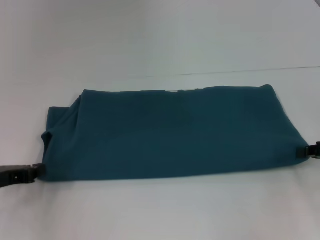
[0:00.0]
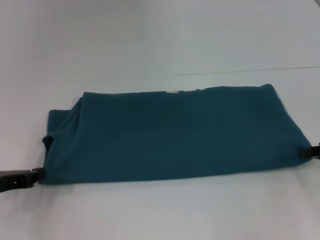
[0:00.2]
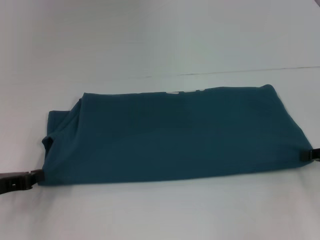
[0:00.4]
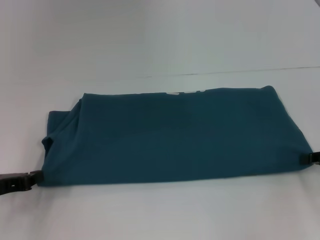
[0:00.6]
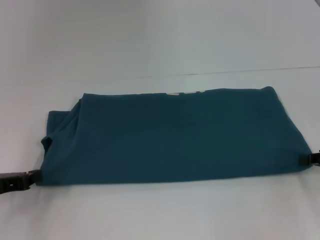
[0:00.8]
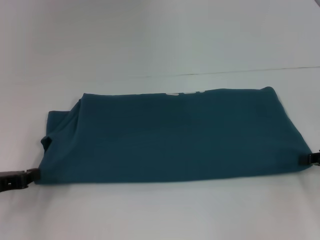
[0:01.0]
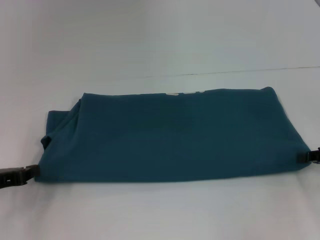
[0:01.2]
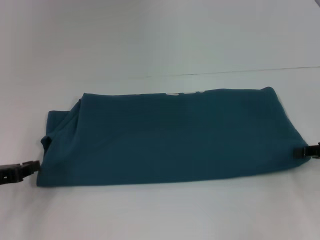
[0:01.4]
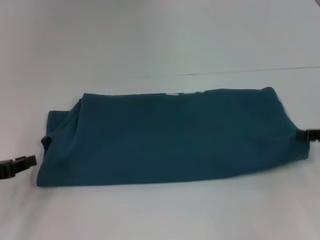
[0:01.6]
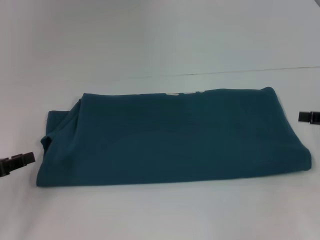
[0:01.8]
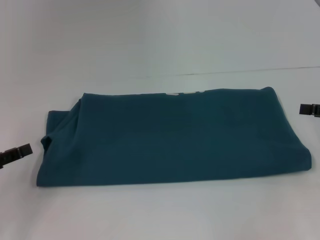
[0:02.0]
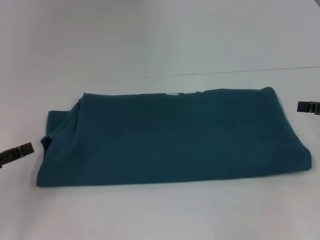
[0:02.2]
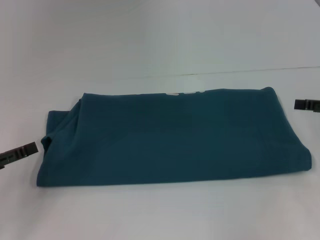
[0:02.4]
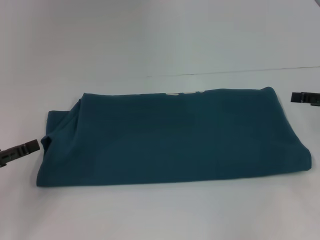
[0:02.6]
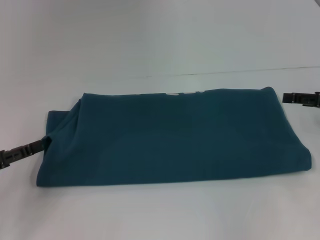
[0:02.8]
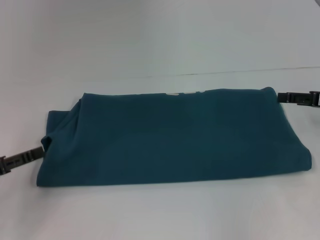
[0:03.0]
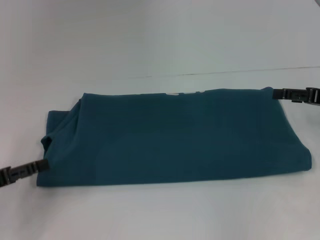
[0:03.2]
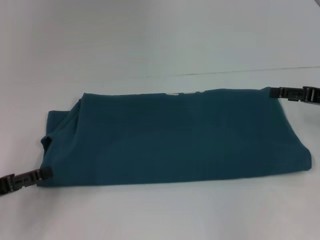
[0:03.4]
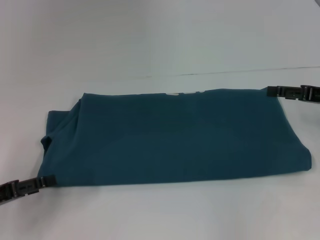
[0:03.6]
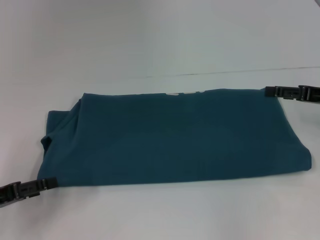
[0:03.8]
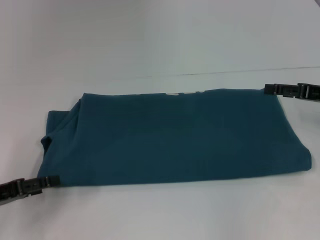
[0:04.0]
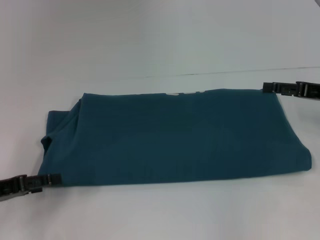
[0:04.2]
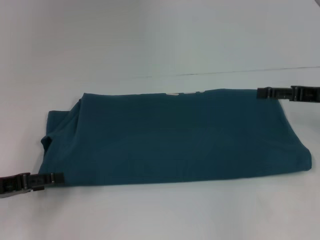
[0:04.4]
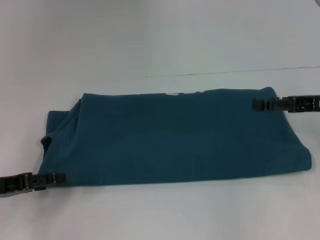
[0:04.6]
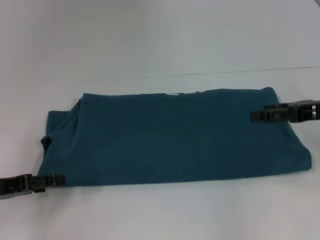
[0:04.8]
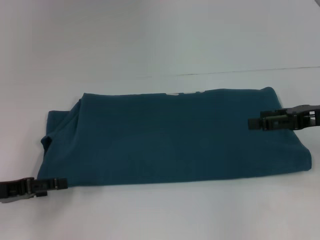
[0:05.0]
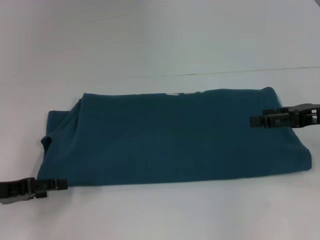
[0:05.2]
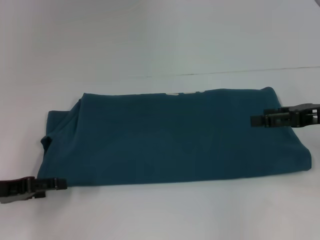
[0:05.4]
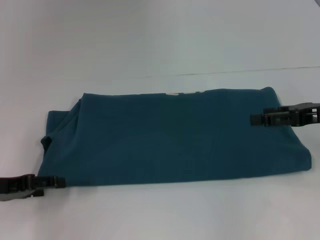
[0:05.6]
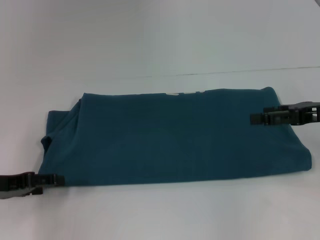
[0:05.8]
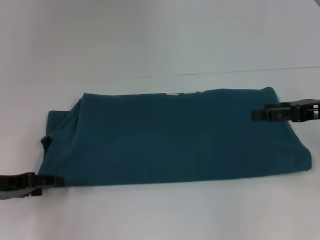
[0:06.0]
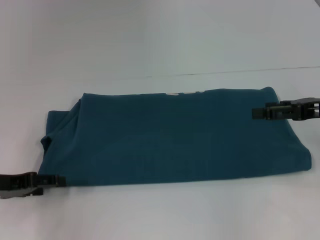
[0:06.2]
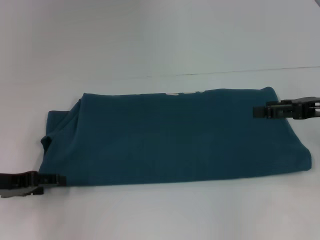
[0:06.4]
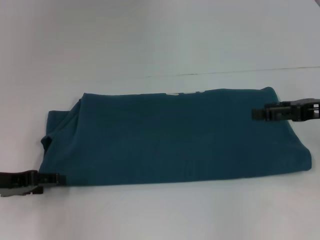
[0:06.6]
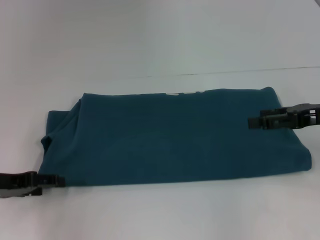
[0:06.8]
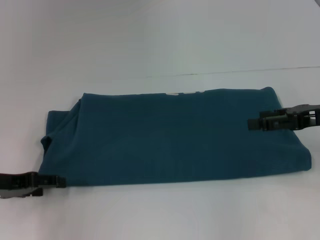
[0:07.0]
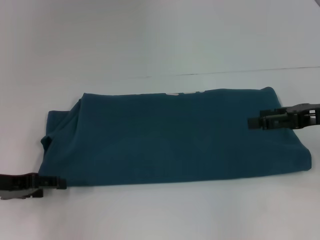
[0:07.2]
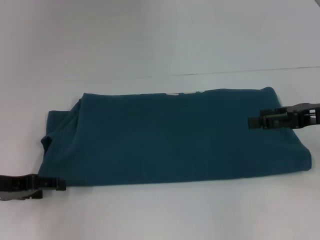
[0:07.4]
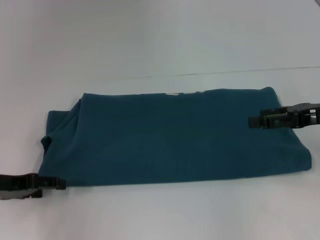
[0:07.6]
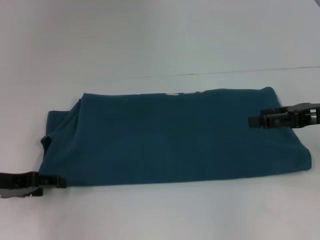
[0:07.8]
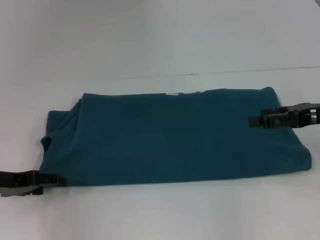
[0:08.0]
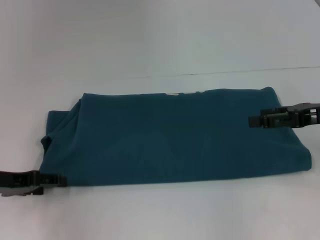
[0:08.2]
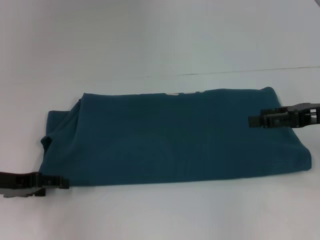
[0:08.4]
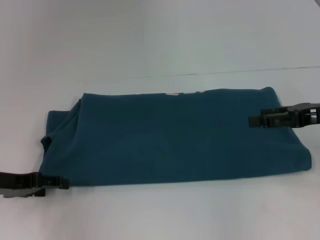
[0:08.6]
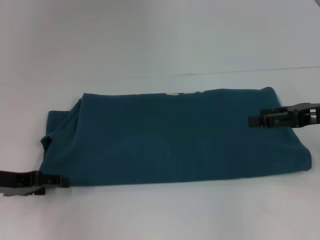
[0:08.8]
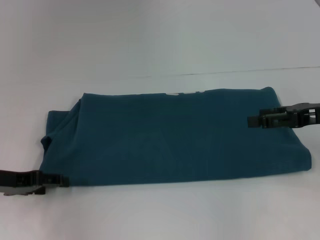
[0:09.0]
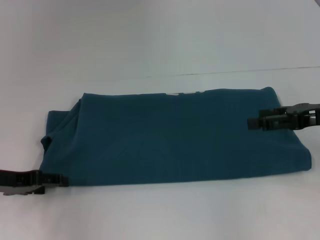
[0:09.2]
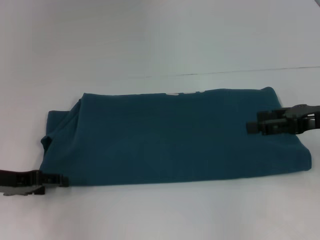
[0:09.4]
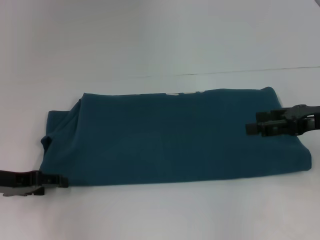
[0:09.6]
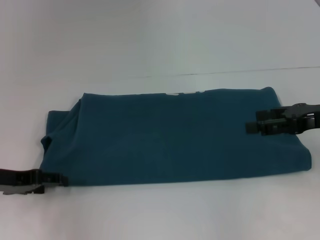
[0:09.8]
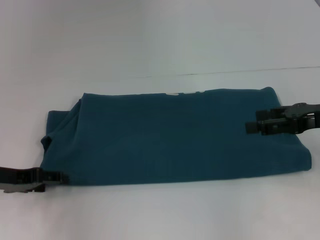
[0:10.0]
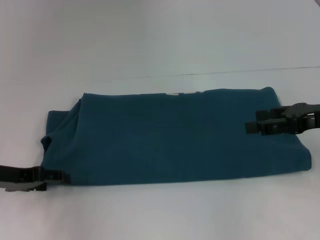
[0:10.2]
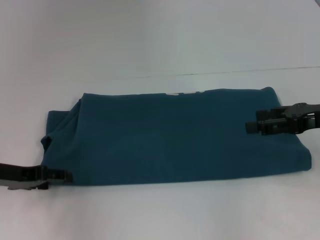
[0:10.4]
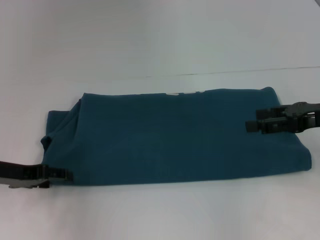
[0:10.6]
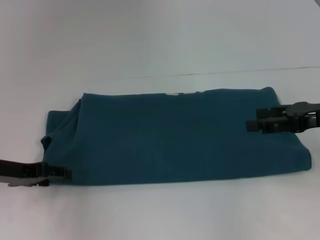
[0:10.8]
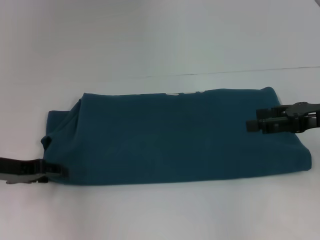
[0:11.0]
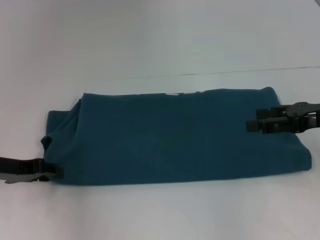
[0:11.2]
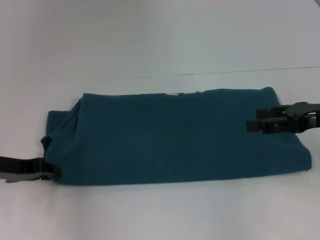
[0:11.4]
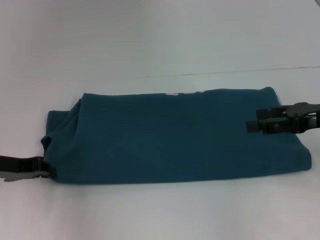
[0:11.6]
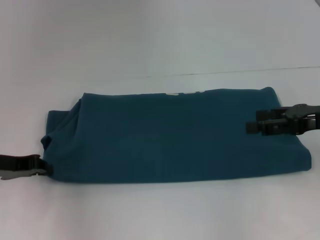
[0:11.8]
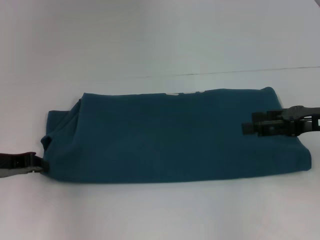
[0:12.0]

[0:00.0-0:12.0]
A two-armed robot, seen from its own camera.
0:00.0 to 0:01.6: There are only small adjustments of the grippers.
0:01.6 to 0:03.0: The right gripper shifts by about 5 cm, and opens up, while the left gripper opens up.
0:03.0 to 0:04.4: The grippers move only a little.
0:04.4 to 0:06.0: There are only small adjustments of the grippers.
0:06.0 to 0:07.6: The two grippers keep their place.
0:07.6 to 0:09.0: Neither gripper changes place.
0:09.0 to 0:10.4: The grippers stay close to where they were, moving slightly.
0:10.4 to 0:12.0: The left gripper closes.

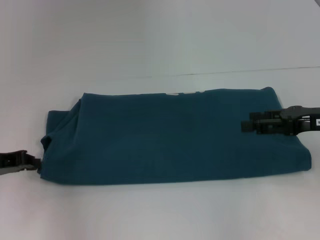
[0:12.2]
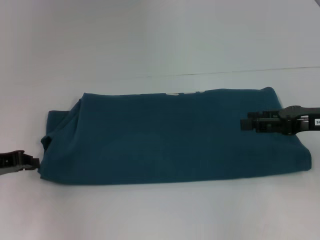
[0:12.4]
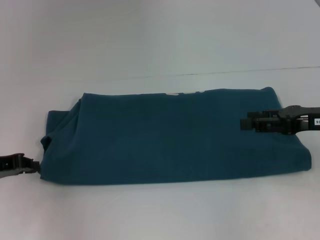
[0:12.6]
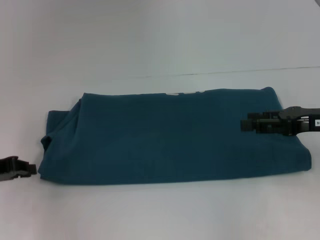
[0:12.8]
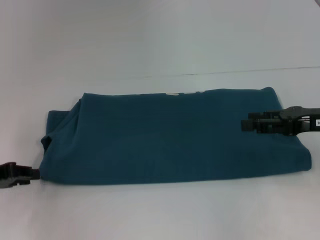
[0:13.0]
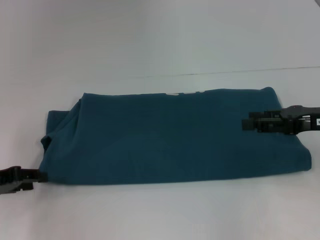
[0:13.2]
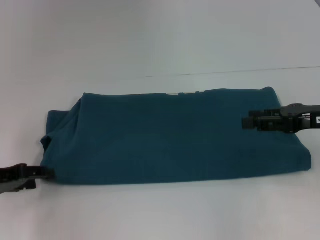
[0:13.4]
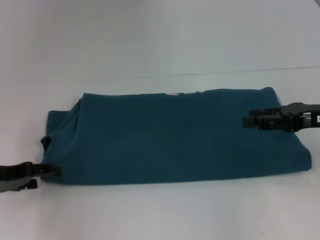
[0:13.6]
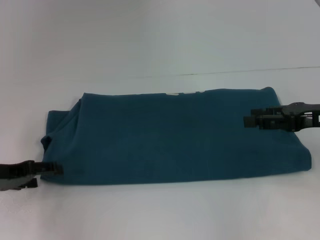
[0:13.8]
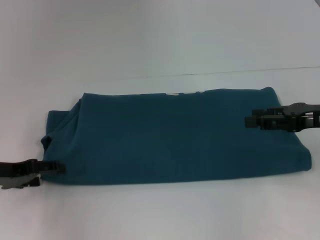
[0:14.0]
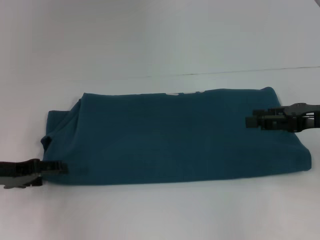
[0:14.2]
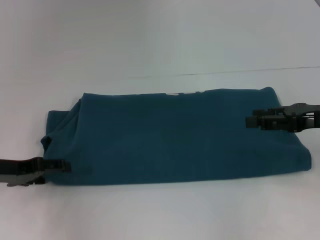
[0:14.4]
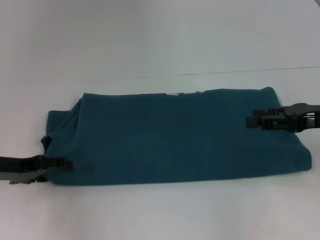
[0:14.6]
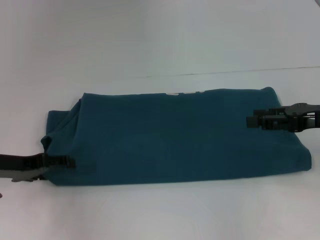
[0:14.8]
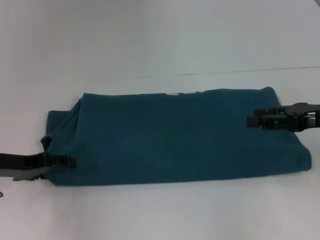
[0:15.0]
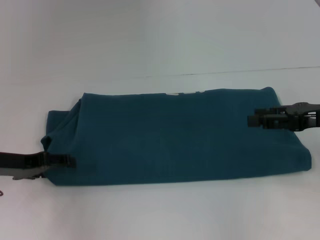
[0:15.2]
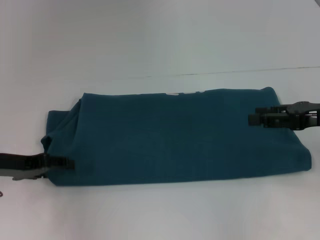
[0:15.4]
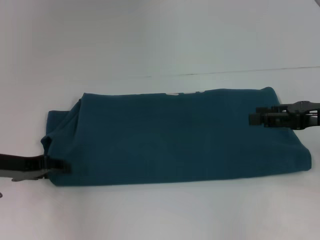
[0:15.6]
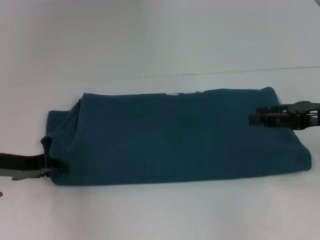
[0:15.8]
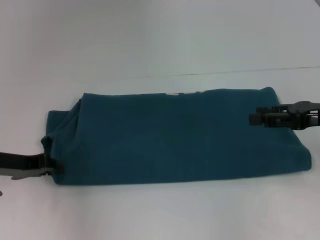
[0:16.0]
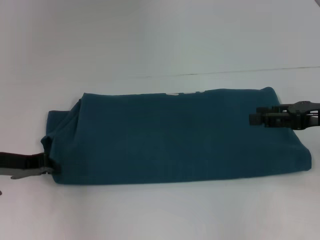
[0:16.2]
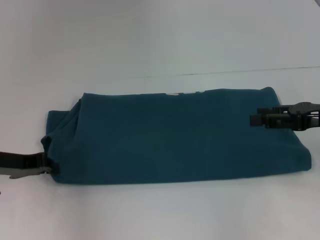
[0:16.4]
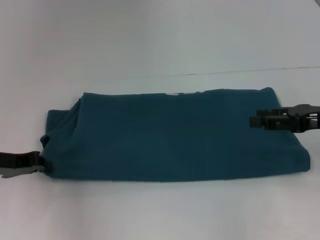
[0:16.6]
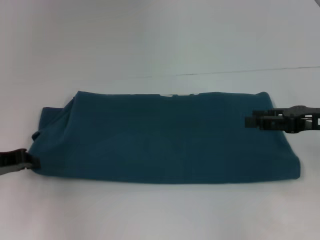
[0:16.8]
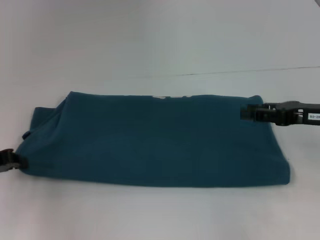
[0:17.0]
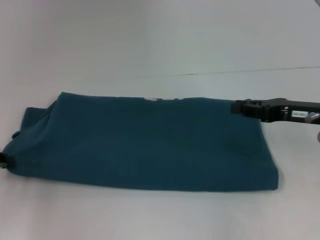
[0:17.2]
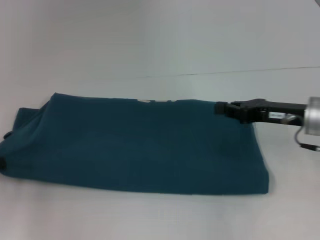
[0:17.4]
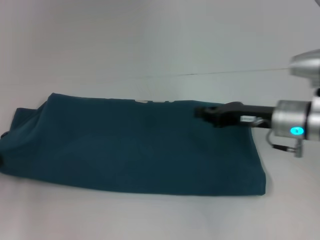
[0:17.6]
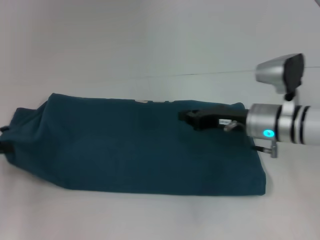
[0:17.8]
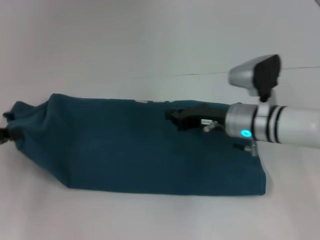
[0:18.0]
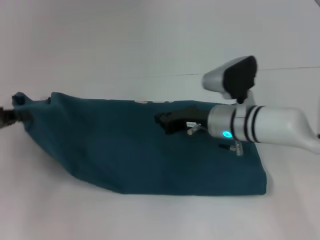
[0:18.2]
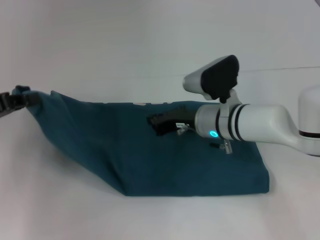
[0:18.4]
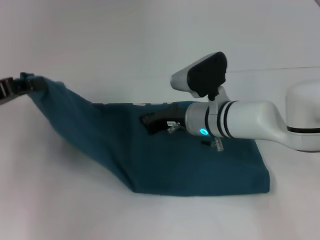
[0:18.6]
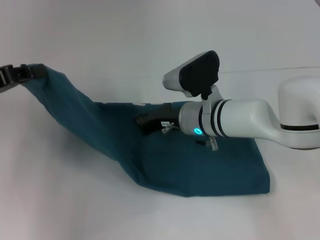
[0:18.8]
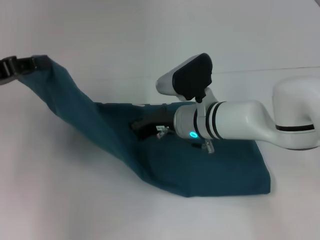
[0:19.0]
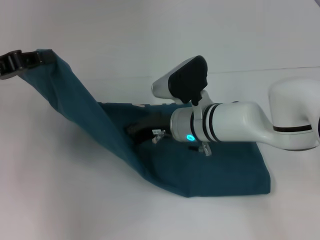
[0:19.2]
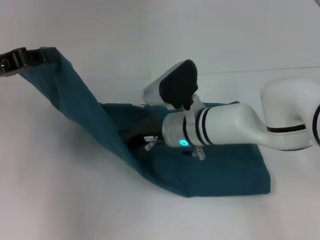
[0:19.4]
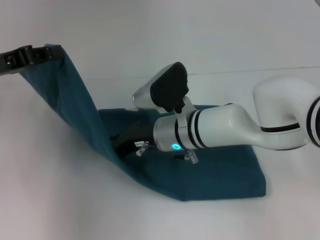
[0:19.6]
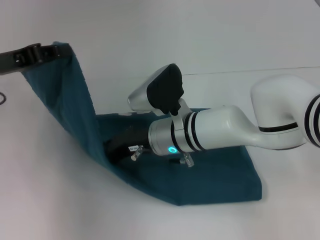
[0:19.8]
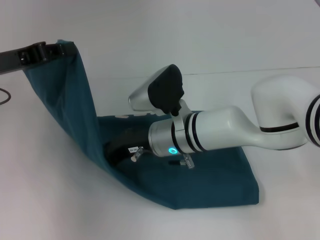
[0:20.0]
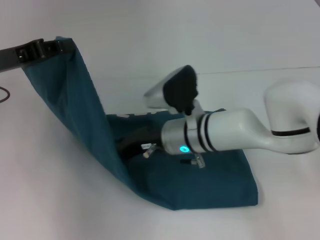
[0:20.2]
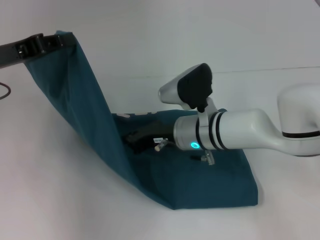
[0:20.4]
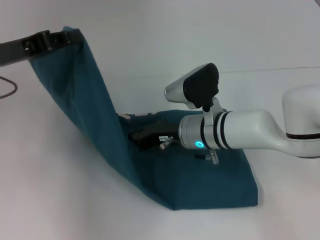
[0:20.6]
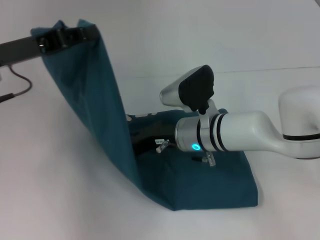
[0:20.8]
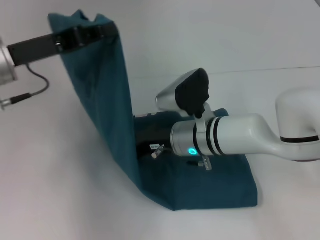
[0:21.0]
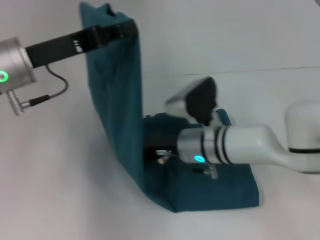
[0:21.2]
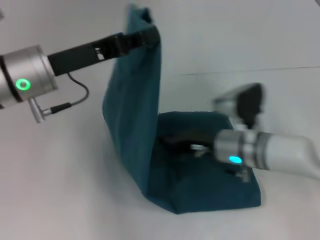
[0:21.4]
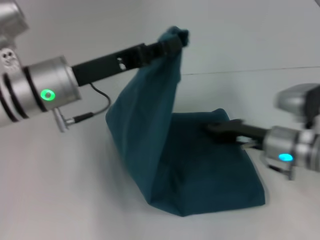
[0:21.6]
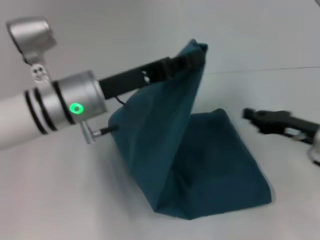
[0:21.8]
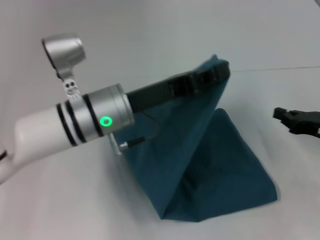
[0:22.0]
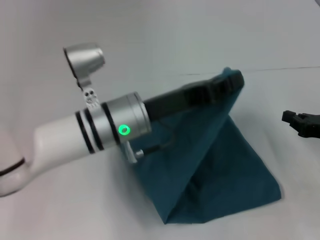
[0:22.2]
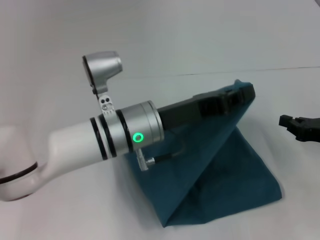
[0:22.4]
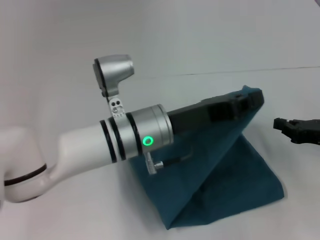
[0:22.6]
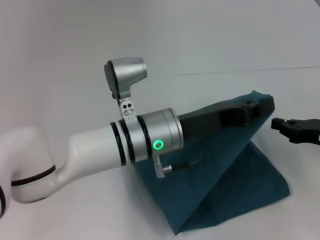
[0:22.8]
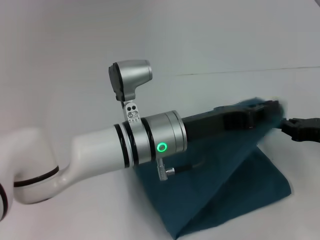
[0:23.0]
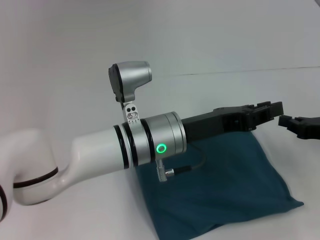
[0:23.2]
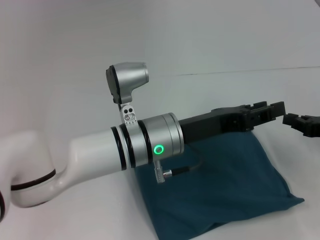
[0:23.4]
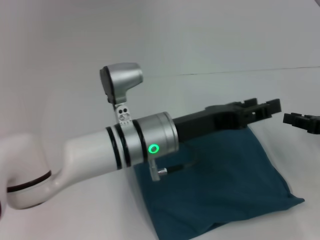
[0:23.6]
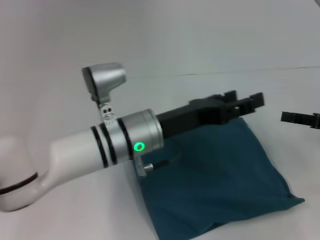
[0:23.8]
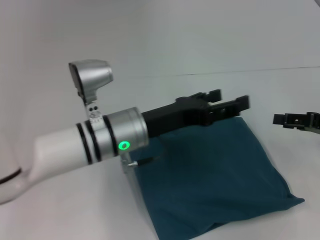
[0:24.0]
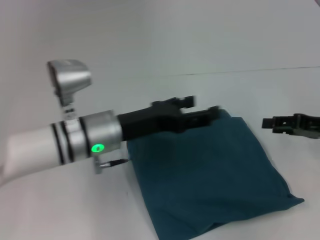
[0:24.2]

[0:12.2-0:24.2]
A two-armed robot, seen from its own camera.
Step, 0:12.2 to 0:23.4: Fold the clothes to the left.
0:12.2 to 0:13.8: The left gripper opens.
0:13.8 to 0:15.2: There are only small adjustments of the grippers.
0:15.2 to 0:16.6: The left gripper closes its fingers.
0:16.6 to 0:18.2: The left gripper shifts by some 5 cm. The right gripper shifts some 20 cm to the left and downward, and closes up.
0:18.2 to 0:19.8: The left gripper shifts roughly 10 cm to the right, forward and upward; the right gripper is displaced to the left by about 10 cm.
0:19.8 to 0:21.2: The left gripper is displaced to the right by approximately 10 cm. The right gripper changes place by about 5 cm.
0:21.2 to 0:22.6: The left gripper travels to the right and downward by roughly 20 cm. The right gripper goes roughly 25 cm to the right.
0:22.6 to 0:24.2: The left gripper is displaced to the left by some 5 cm, and opens, while the right gripper opens up.
